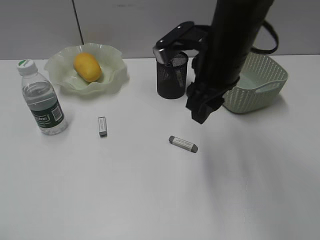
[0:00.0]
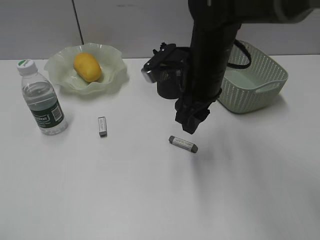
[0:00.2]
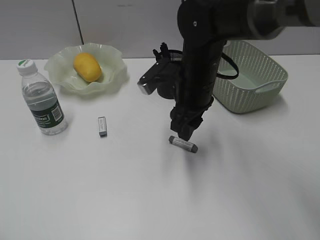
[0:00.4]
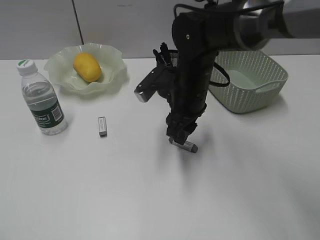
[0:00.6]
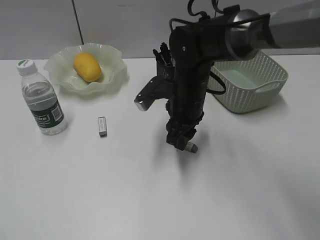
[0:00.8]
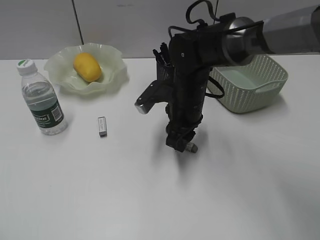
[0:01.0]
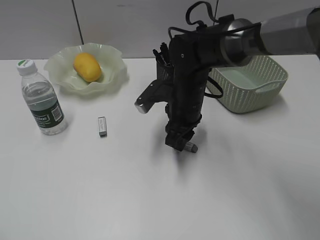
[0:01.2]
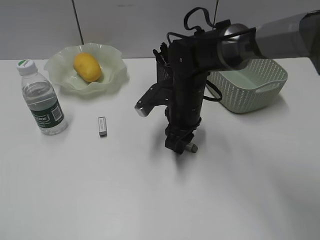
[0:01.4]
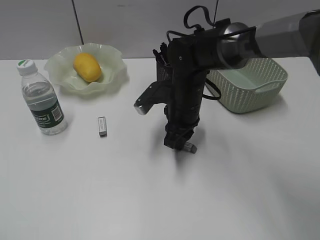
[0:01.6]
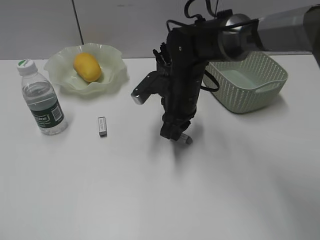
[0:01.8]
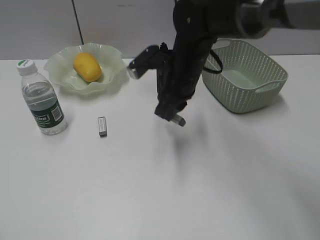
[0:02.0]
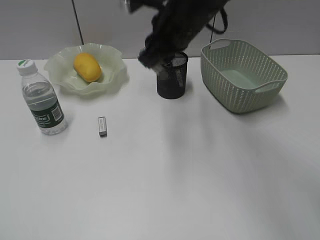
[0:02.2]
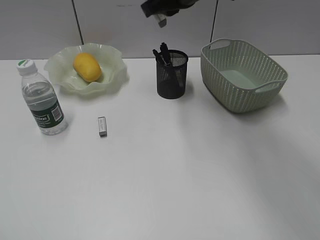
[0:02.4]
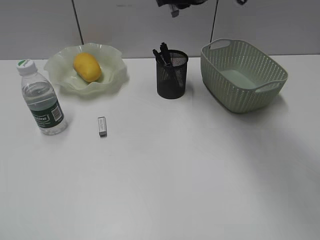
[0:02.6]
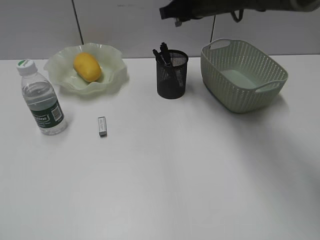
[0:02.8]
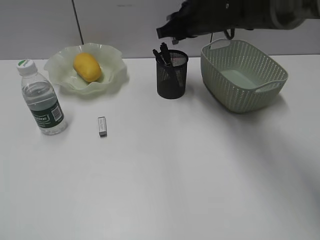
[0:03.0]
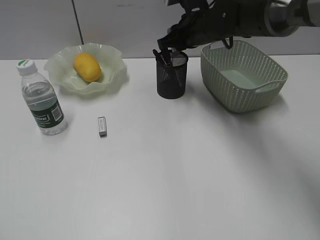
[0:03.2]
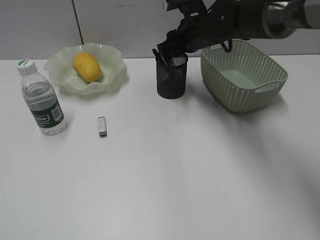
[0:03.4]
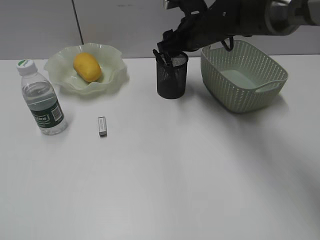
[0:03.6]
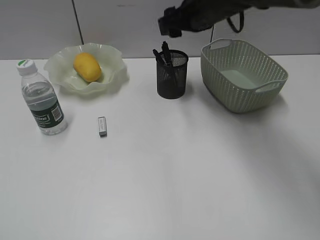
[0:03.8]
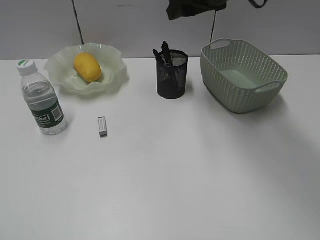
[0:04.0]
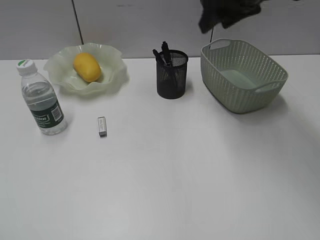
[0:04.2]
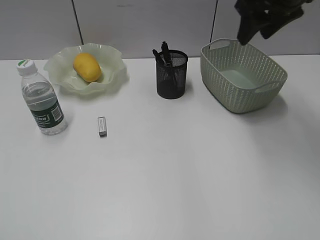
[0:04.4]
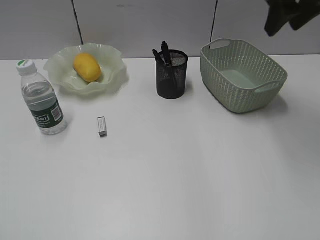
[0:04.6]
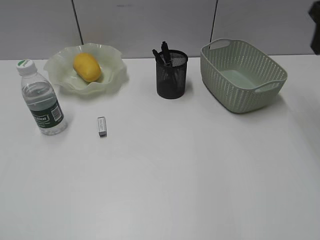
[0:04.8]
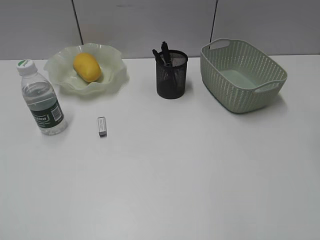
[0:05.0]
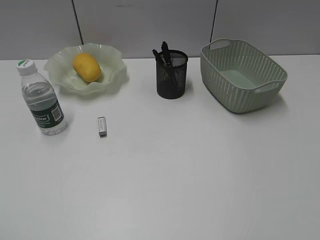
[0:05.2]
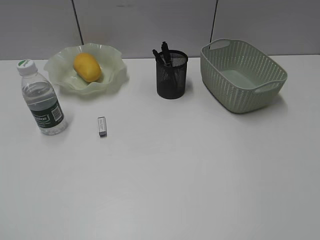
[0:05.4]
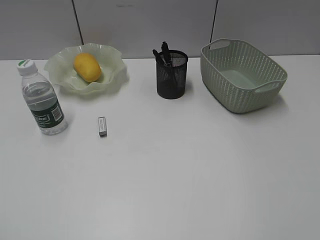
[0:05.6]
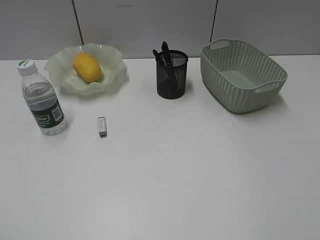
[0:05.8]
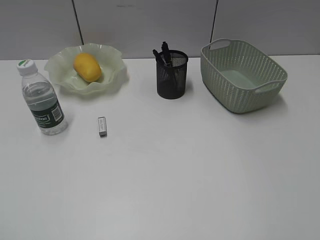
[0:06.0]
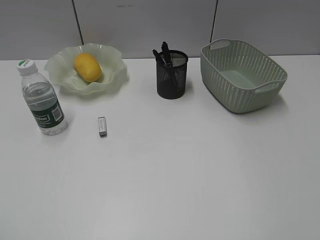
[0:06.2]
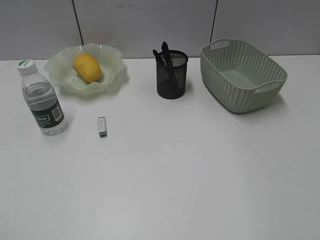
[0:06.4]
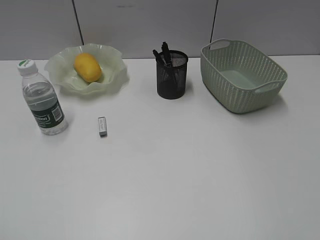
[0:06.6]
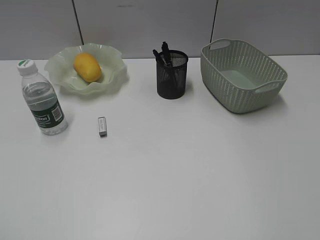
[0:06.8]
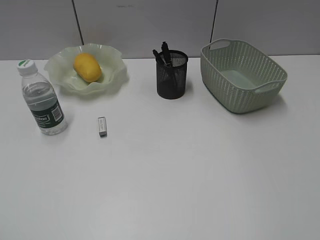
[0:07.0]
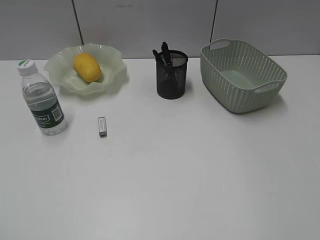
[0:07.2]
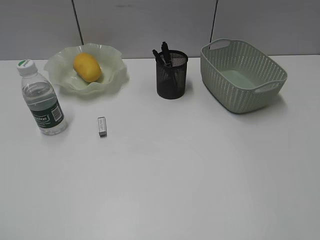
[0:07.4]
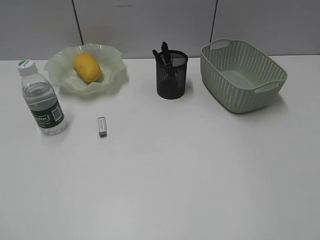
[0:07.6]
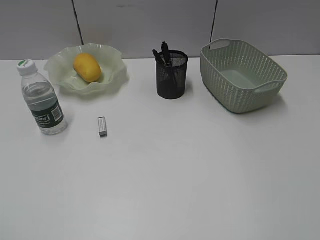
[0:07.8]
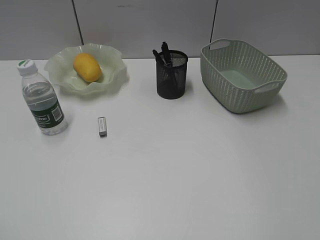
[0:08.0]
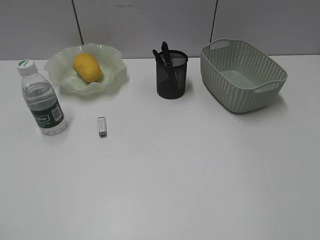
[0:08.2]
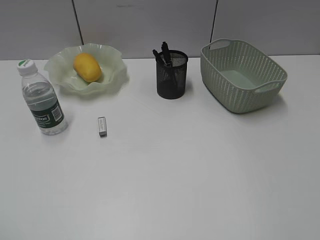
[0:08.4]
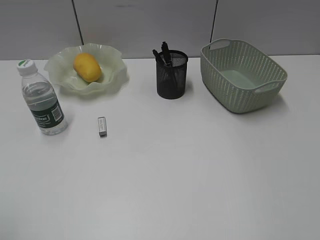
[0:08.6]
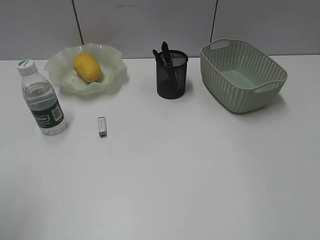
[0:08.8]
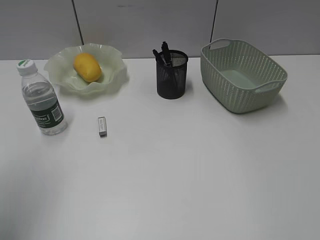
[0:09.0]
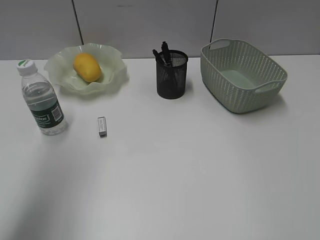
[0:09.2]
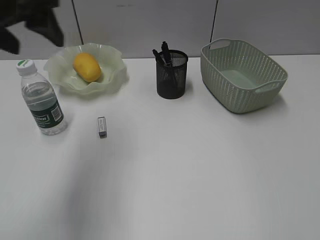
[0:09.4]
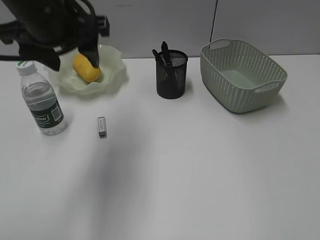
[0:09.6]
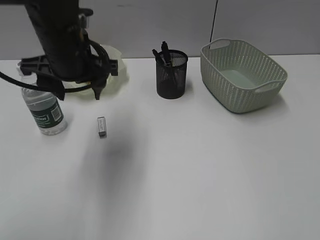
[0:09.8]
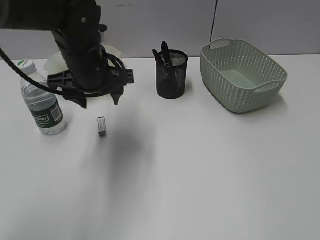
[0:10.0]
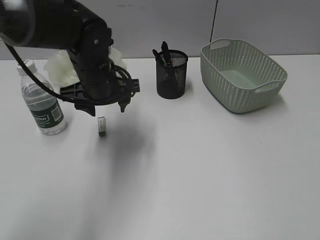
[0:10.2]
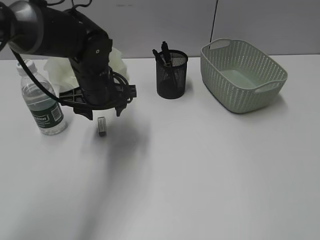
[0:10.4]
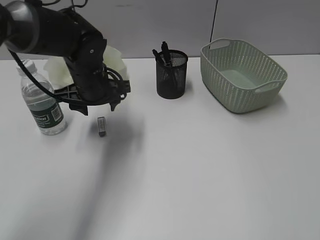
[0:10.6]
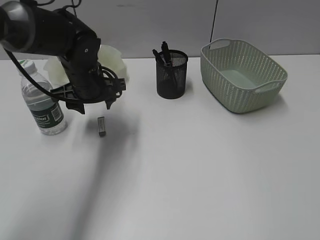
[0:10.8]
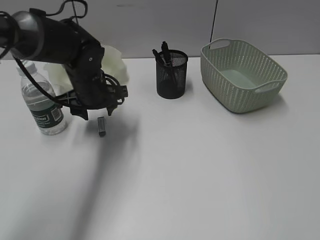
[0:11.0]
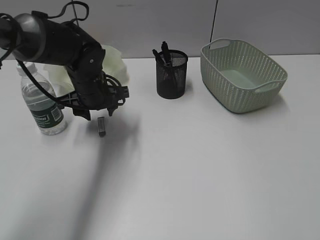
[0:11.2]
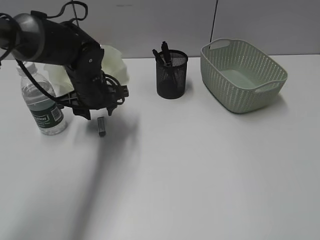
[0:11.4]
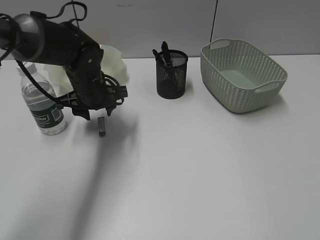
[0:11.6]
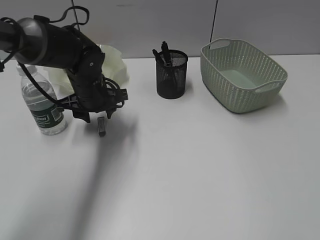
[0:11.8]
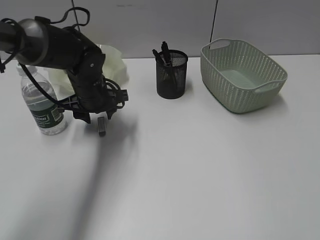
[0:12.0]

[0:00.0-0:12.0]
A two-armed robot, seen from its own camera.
Step, 0:01.8 to 0:03.4: Place the eraser in pen holder with right gripper.
0:00.0 to 0:01.6: The right gripper shifts approximately 15 cm downward, and closes.
0:01.6 to 0:03.0: The right gripper moves upward and forward, some 15 cm.
0:03.0 to 0:04.4: The right gripper heads upward, to the right and backward, covering some 15 cm, and opens up.
0:04.4 to 0:06.0: The right gripper heads backward, covering roughly 35 cm.
0:07.6 to 0:09.0: The left gripper shifts roughly 15 cm forward, and opens.
0:09.0 to 0:10.4: The left gripper heads forward, to the right and downward, covering roughly 35 cm.
0:10.4 to 0:12.0: The grippers stay close to where they were, moving slightly.

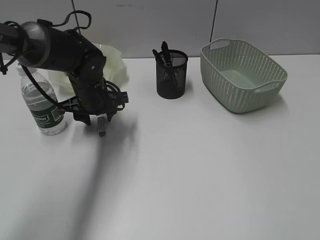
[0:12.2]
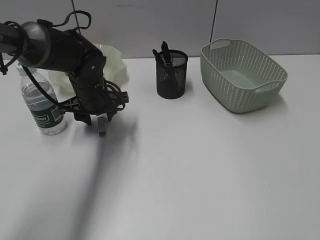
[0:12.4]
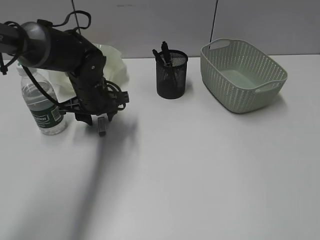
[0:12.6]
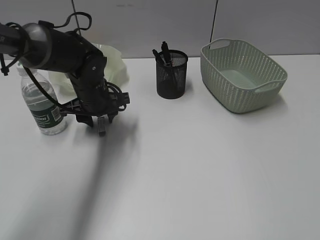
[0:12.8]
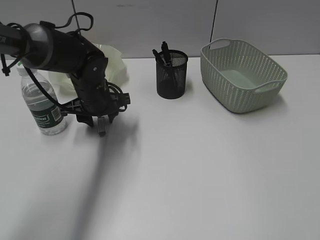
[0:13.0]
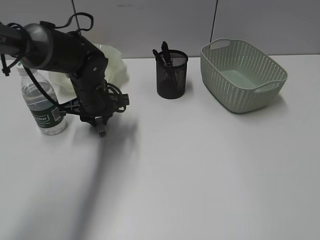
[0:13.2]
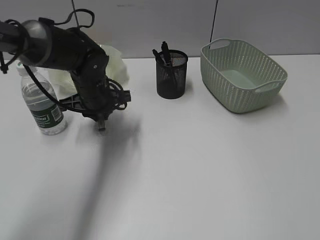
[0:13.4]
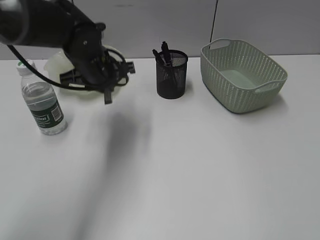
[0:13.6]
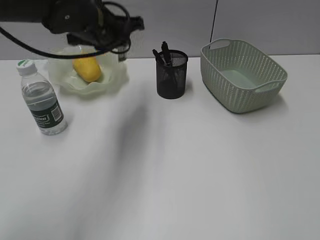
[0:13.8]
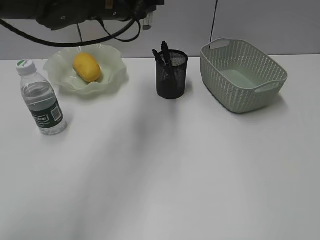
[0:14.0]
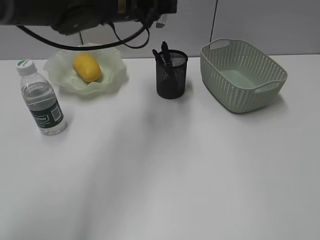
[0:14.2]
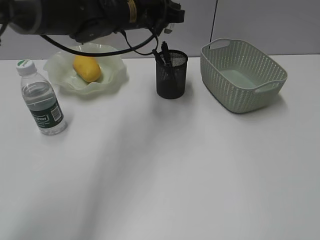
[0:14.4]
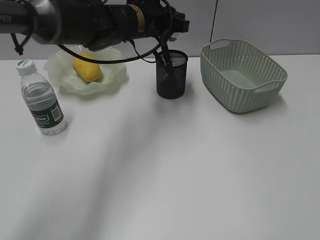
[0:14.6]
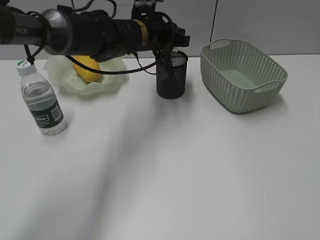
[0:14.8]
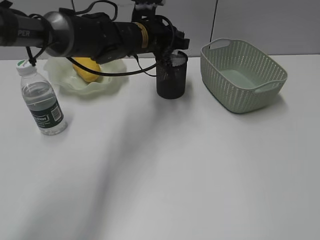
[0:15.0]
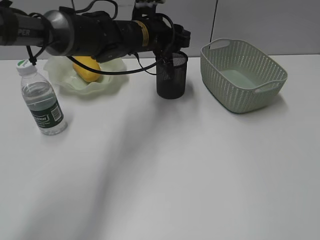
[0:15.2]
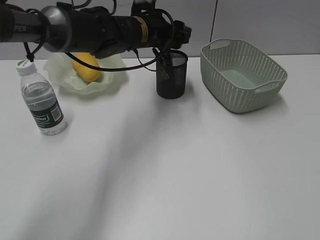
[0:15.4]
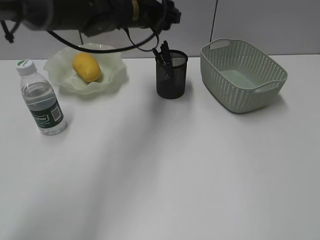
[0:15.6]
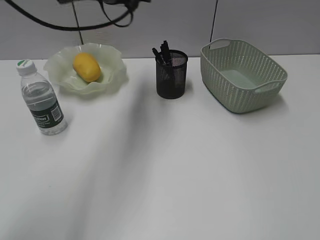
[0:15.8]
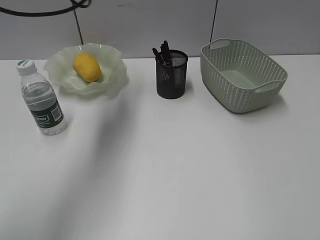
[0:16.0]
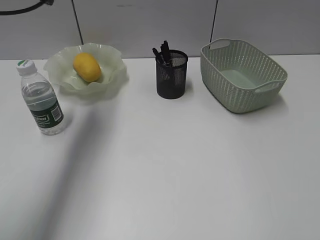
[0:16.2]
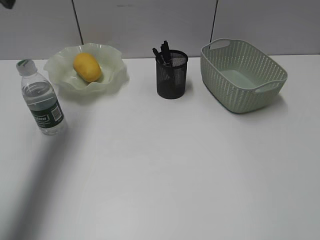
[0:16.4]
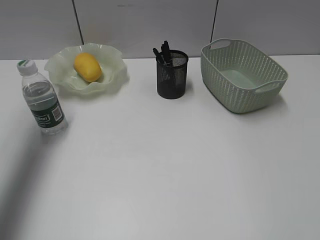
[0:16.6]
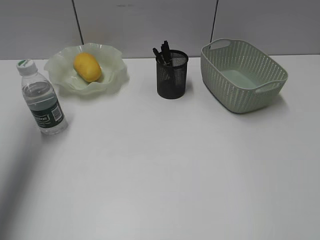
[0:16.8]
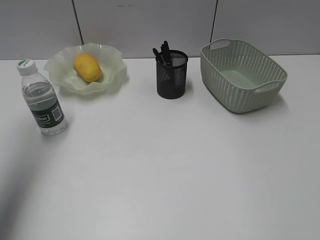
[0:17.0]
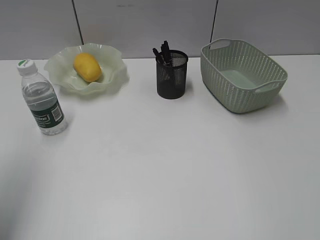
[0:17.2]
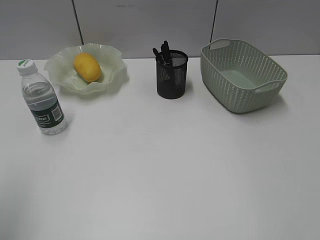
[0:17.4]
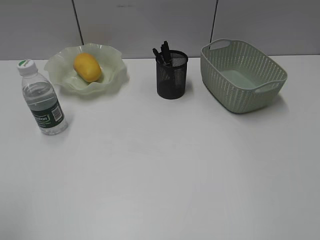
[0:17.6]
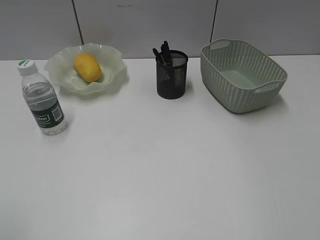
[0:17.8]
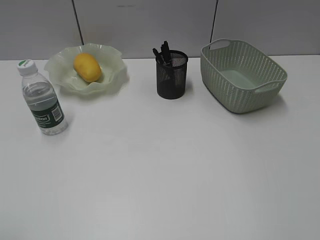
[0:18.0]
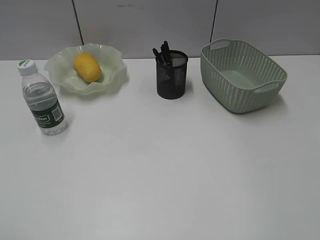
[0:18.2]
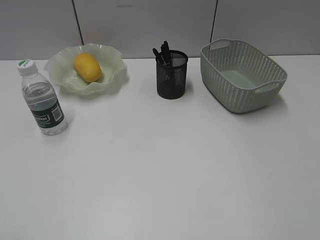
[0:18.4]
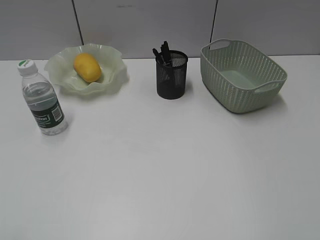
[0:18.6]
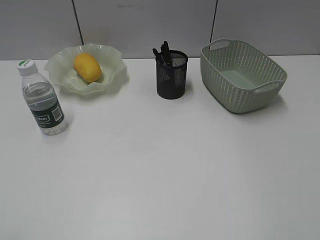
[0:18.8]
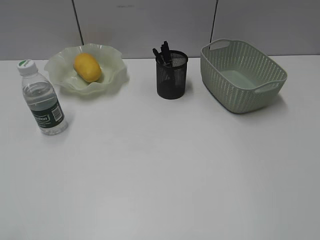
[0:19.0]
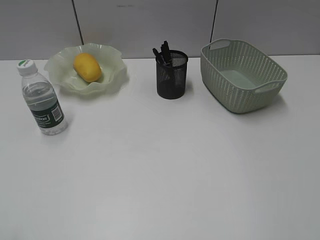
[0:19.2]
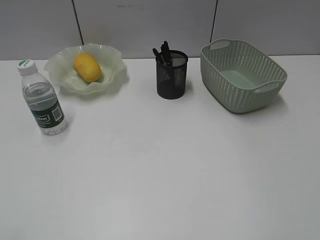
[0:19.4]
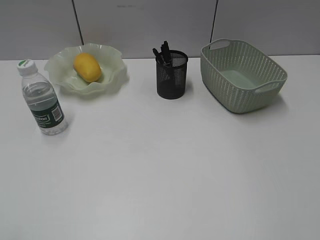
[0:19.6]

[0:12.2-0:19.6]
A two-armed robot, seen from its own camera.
Step, 0:13.4 to 0:15.4: Place the eraser in pen holder with left gripper.
0:12.2 to 0:13.6: The left gripper travels upward by about 5 cm, and closes up.
0:13.6 to 0:15.2: The left gripper heads to the right and forward, covering approximately 10 cm, travels upward and back again, approximately 10 cm each way, and opens its fingers.
0:15.2 to 0:16.6: The left gripper goes approximately 35 cm to the left and upward.
0:16.6 to 0:18.2: The left gripper heads backward, covering roughly 35 cm.
